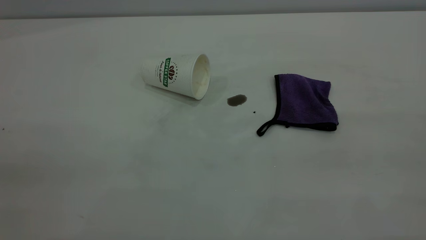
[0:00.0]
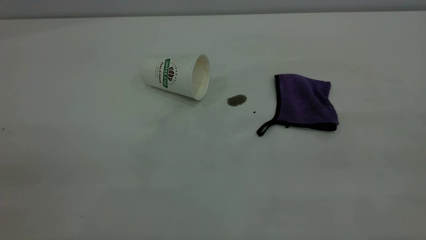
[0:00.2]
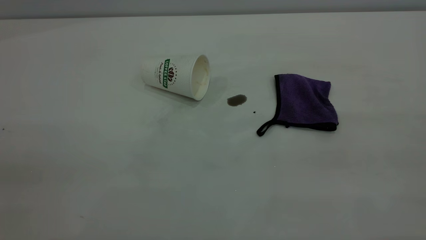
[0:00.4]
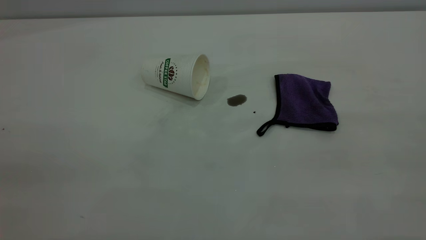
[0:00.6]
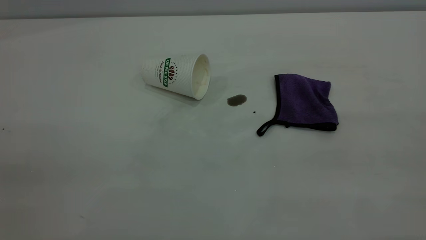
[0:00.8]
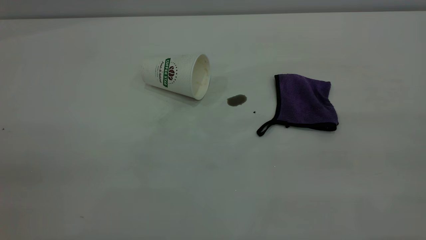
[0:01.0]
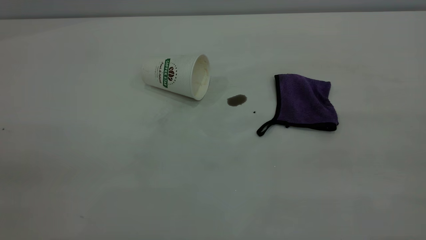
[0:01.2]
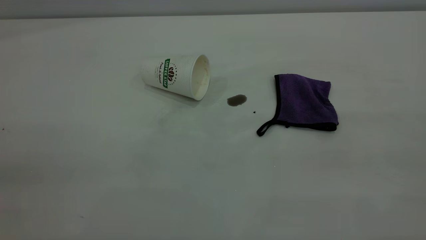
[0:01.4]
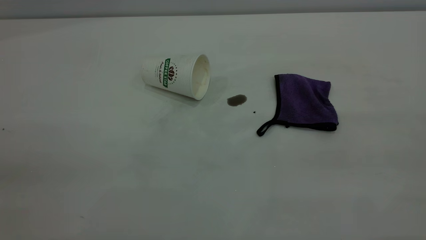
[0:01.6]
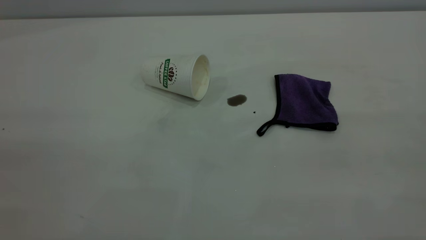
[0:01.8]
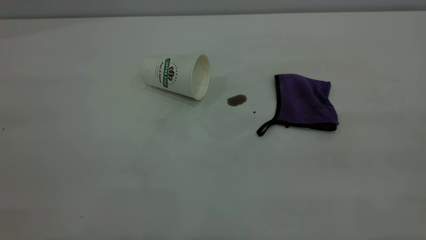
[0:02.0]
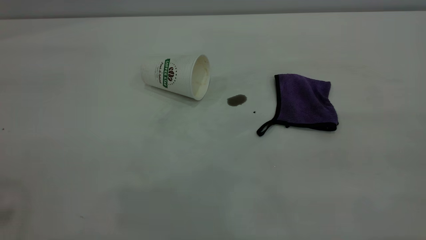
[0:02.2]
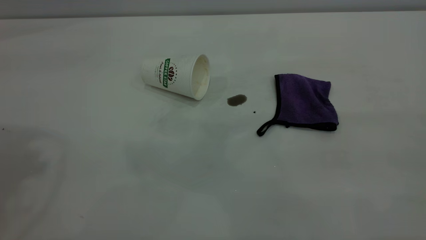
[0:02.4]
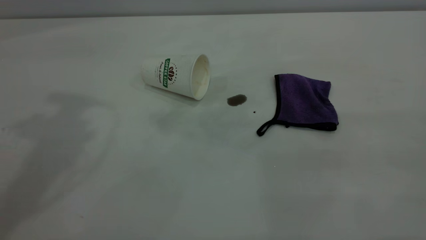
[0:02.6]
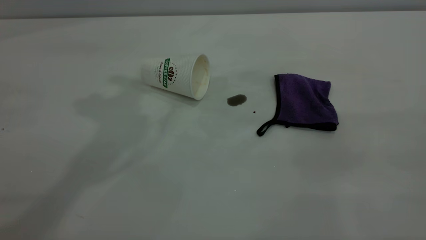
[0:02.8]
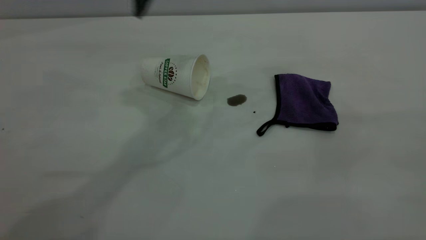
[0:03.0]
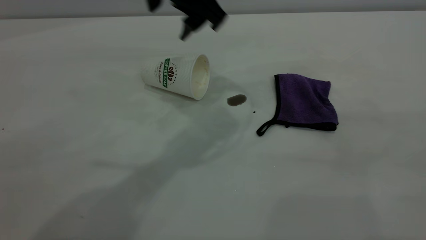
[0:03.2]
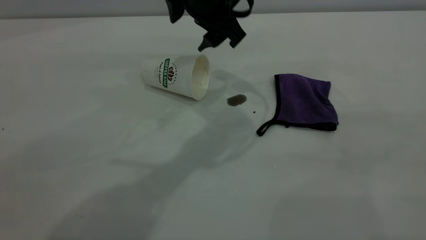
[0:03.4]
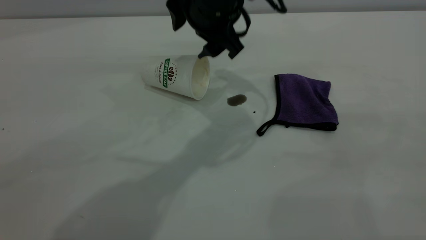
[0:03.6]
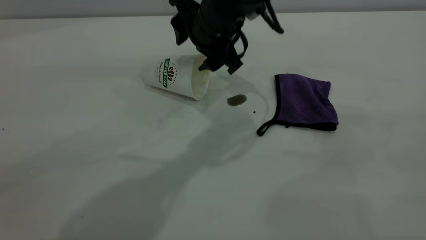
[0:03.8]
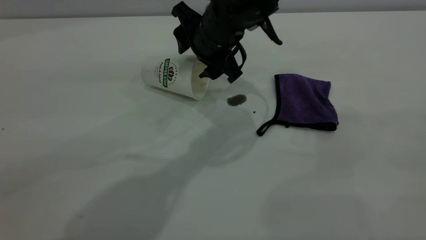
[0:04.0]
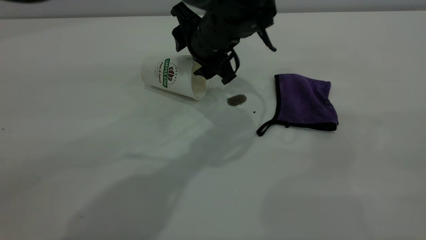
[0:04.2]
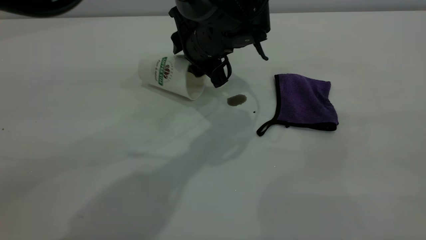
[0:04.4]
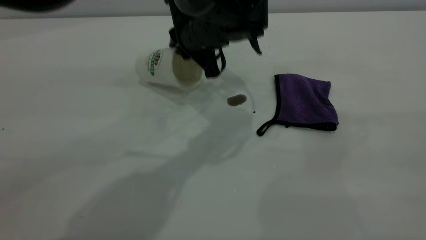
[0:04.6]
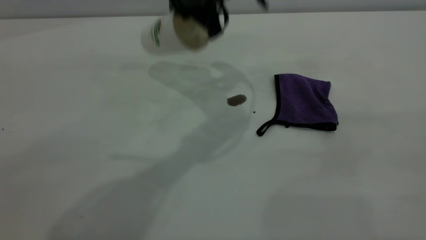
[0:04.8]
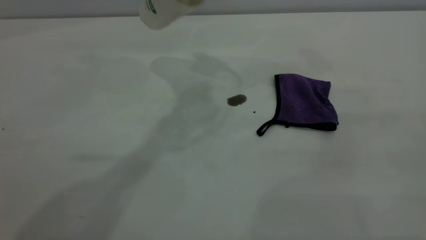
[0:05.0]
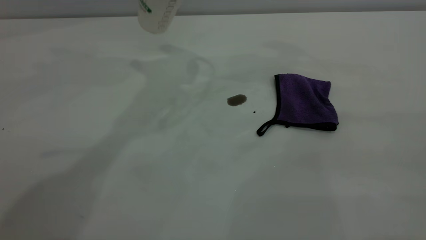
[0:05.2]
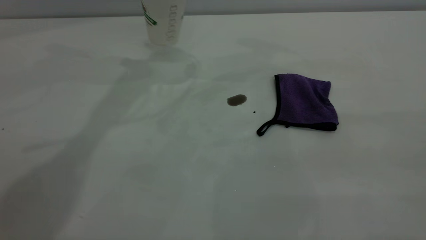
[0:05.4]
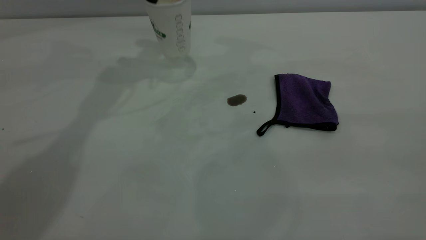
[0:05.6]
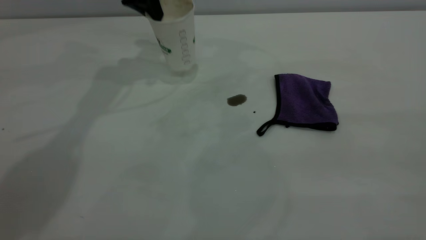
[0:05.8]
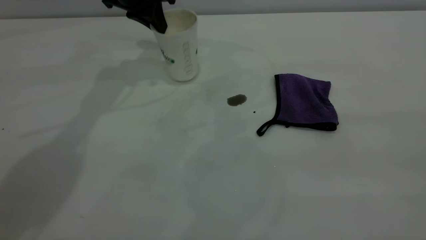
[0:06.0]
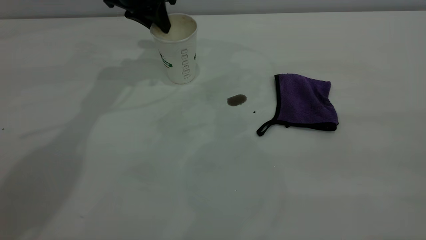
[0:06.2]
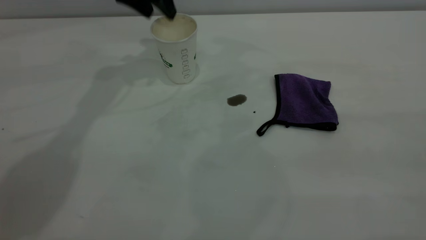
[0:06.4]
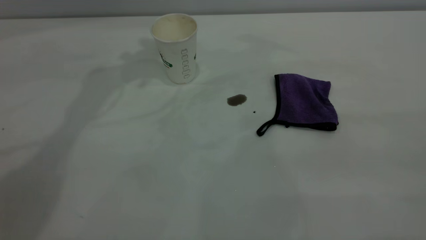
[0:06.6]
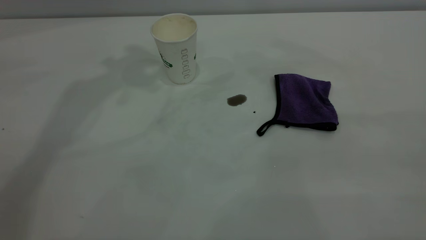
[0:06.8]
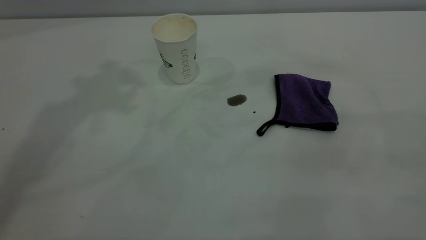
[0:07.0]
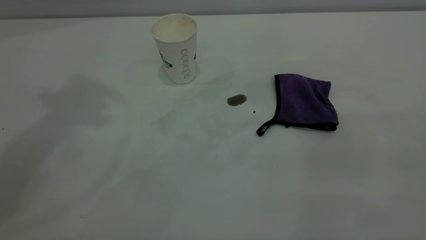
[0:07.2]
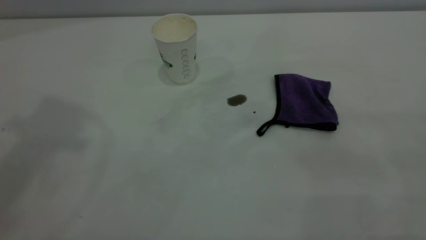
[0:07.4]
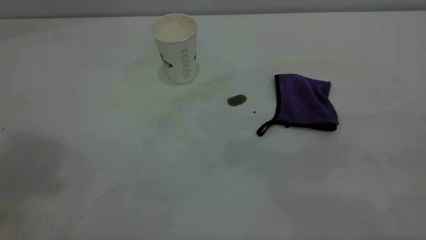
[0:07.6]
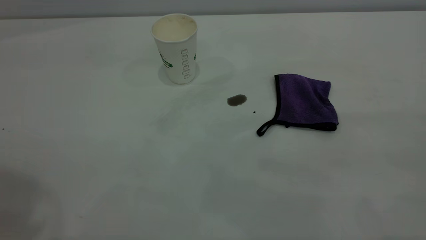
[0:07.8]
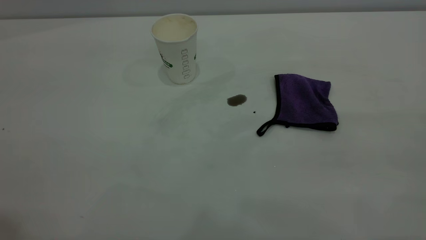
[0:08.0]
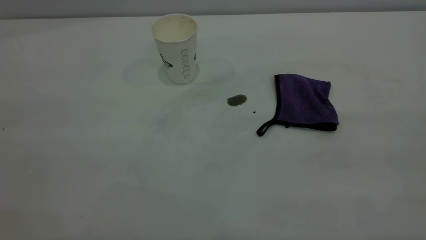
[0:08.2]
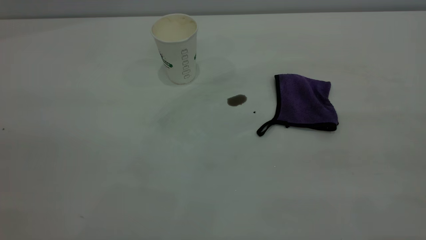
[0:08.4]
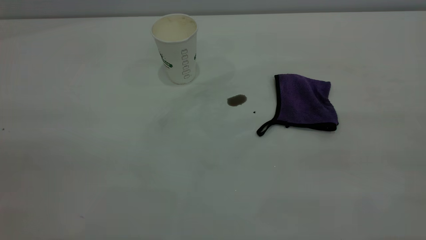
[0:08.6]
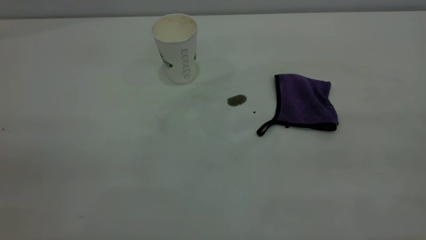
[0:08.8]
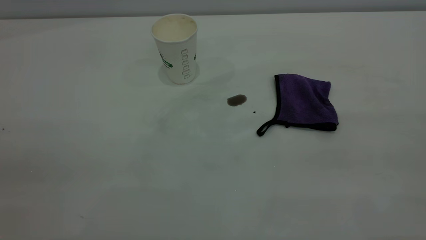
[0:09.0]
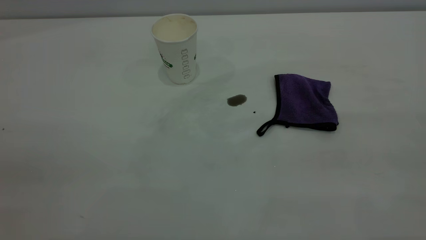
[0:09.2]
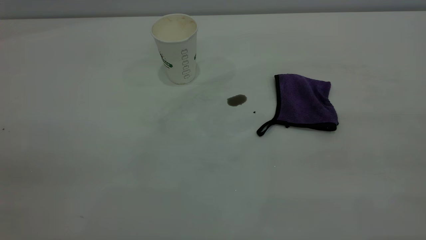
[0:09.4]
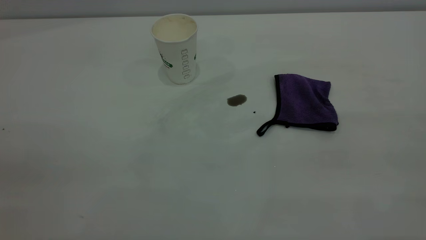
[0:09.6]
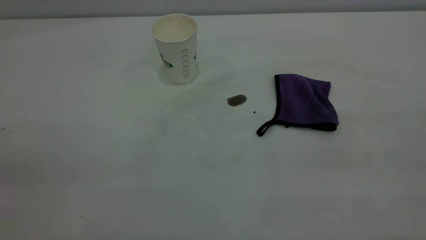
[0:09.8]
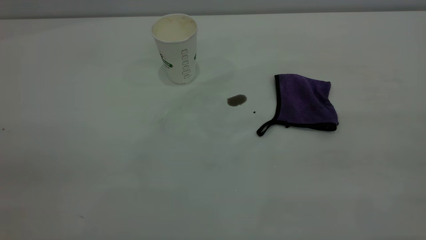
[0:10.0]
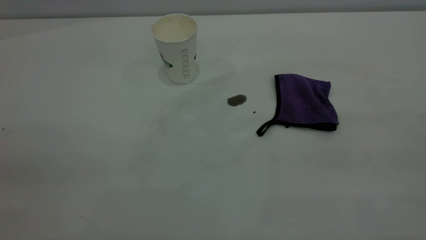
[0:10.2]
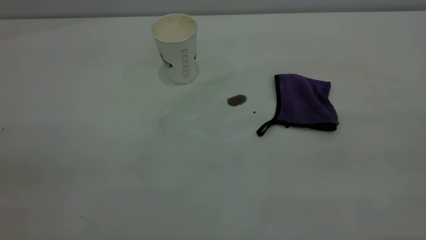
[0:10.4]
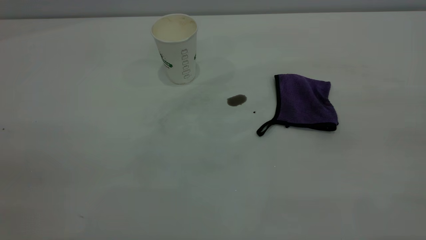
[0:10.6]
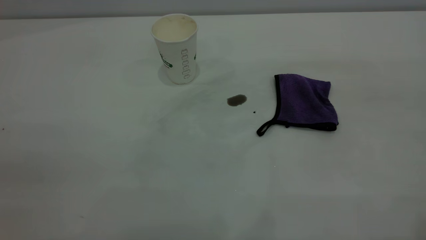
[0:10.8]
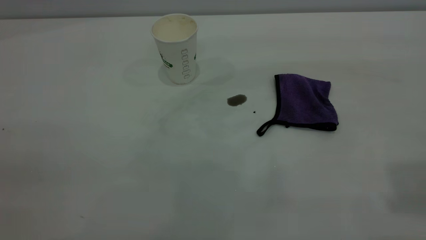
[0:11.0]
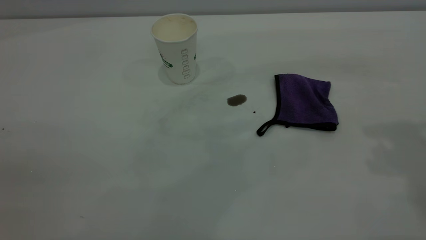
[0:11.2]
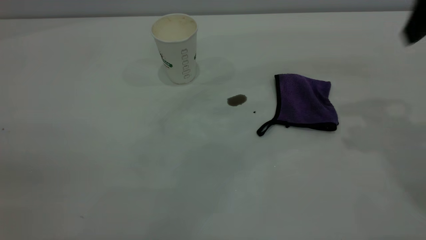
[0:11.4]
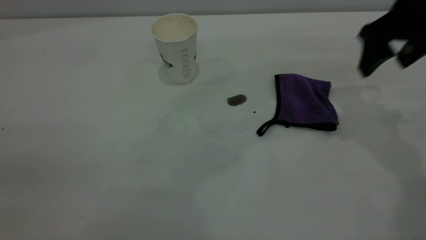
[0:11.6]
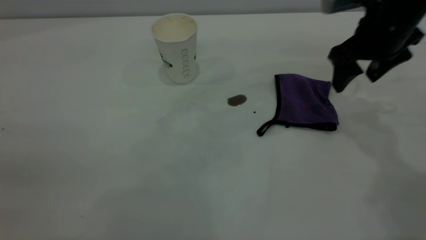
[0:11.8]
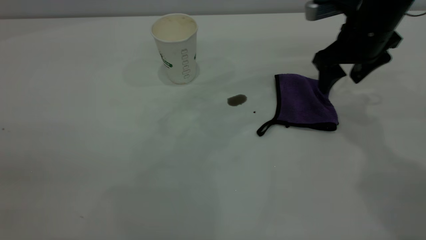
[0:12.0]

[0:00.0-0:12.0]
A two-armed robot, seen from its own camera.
Task of the whole recording: the left gripper pick up the fallen cup and place it upright, the right gripper grasp the purple rag and wipe the coffee stain on the table, the right gripper put the purple rag back in its original position.
Step, 0:00.0 to 0:06.2: Stand the paper cup upright.
0:00.0 to 0:01.6: Both grippers stay put.
0:03.0 to 0:04.4: The left gripper heads downward and to the right, covering roughly 20 cm, and closes up.
0:04.4 to 0:06.0: The left gripper shifts approximately 20 cm to the left, forward and upward, and closes up.
0:06.0 to 0:07.6: The left gripper shifts approximately 50 cm upward and backward, and opens.
0:09.0 to 0:10.4: Both grippers stay put.
0:10.4 to 0:12.0: The right gripper shifts roughly 50 cm forward and downward, and opens its fingers.

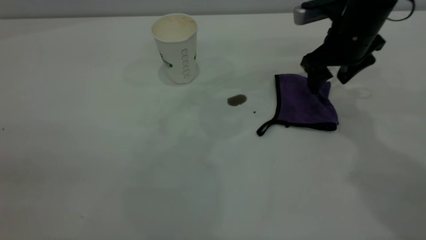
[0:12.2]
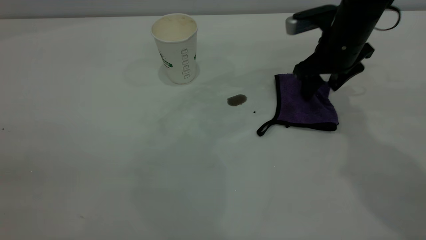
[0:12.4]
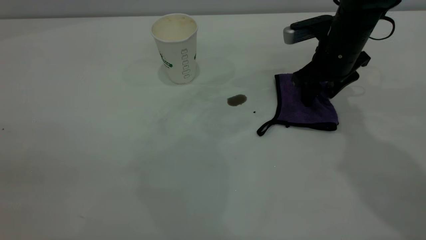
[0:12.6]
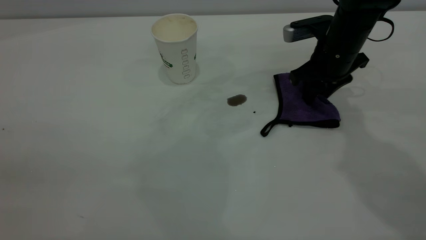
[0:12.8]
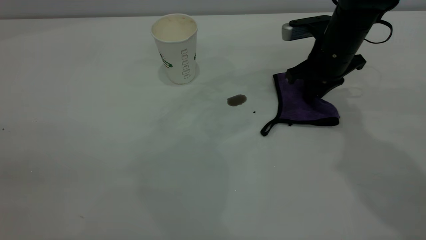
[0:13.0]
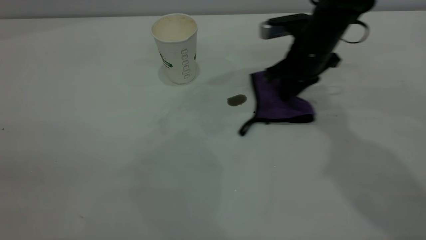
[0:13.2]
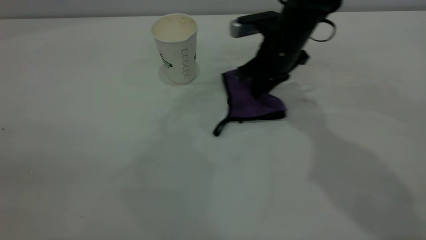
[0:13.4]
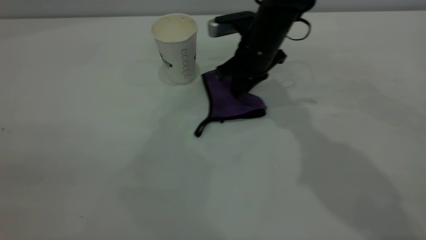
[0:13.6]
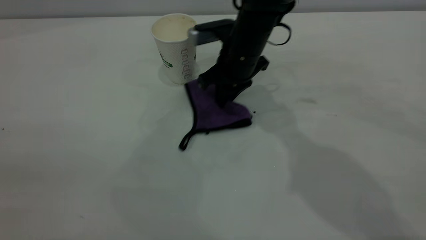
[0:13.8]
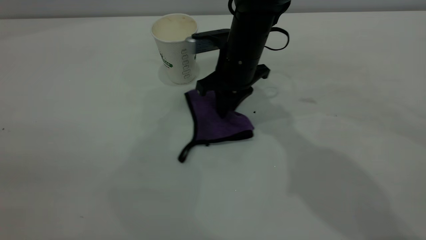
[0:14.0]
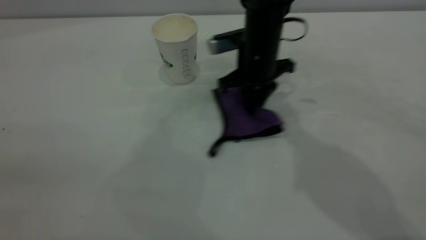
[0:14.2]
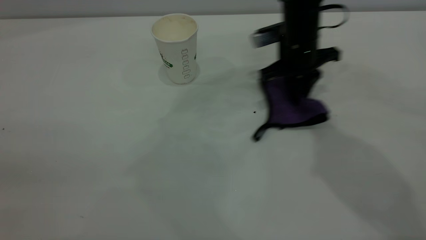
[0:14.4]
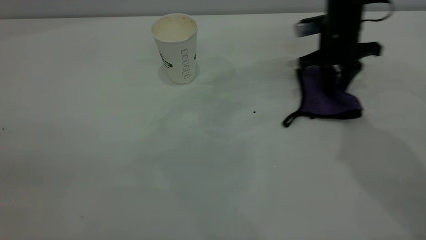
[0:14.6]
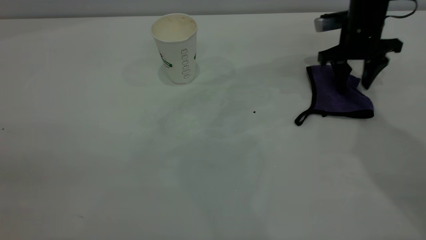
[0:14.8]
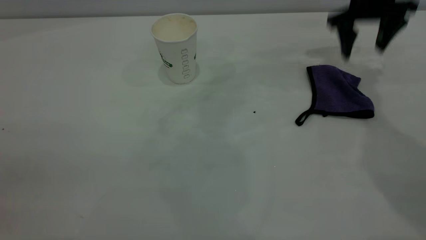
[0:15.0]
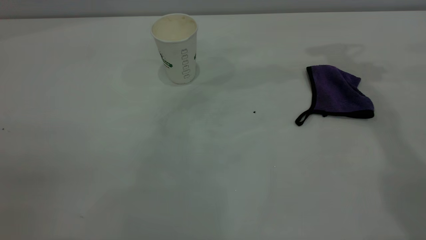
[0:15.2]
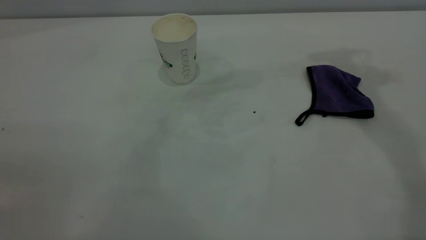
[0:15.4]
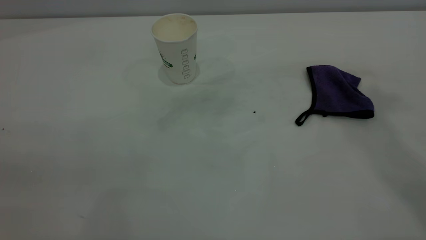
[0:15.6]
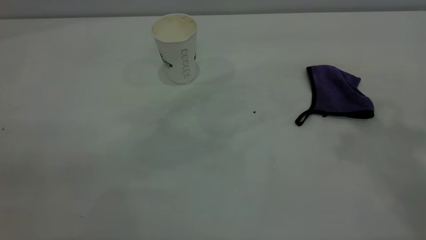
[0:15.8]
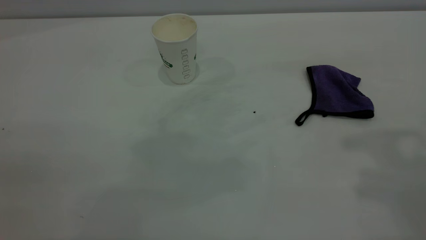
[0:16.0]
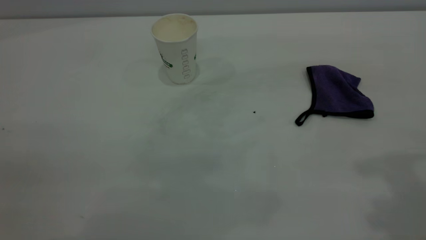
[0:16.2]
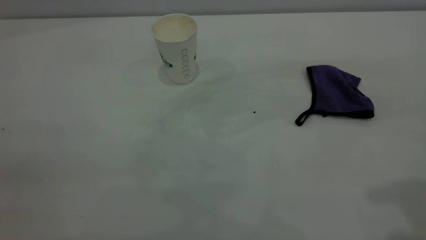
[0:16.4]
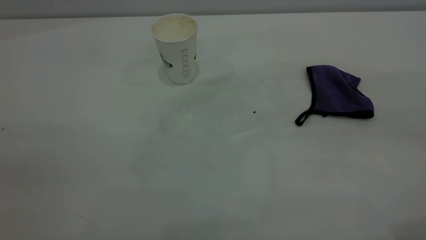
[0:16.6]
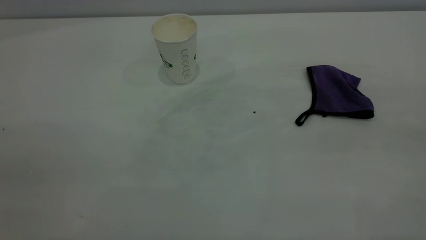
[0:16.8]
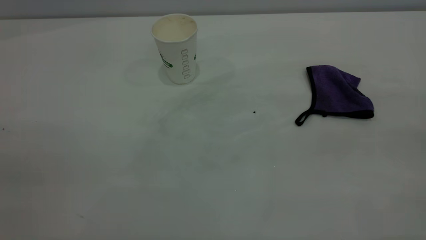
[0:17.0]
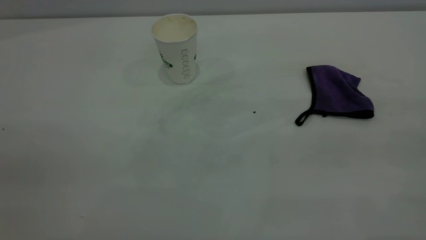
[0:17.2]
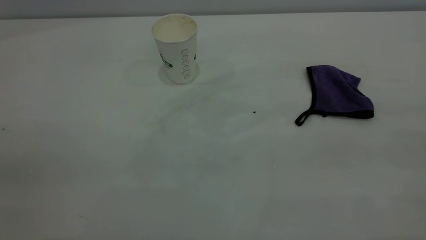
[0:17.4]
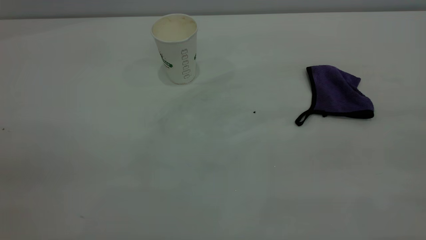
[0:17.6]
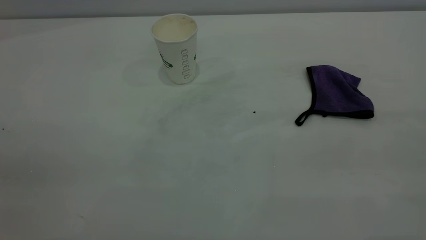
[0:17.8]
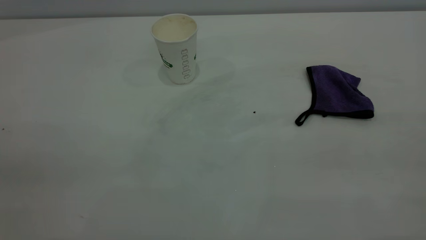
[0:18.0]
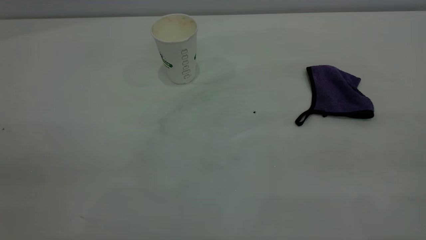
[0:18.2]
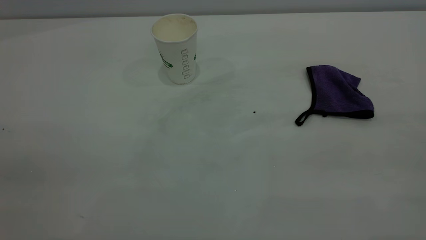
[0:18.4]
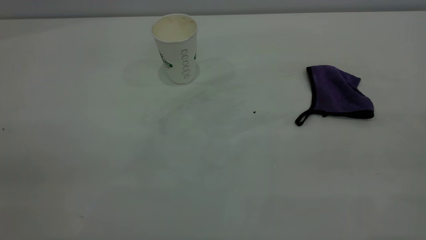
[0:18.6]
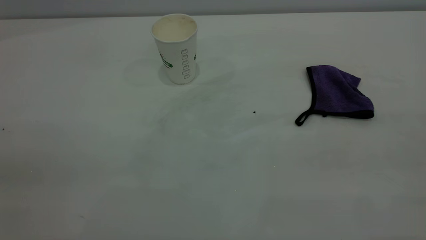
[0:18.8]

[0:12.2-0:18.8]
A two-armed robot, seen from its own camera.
Task of the whole recording: the left gripper pick up the fallen cup and place it upright, the right gripper grasp the purple rag and wipe the coffee stain on the table, the right gripper put the purple rag back in its original position.
Step, 0:12.2 to 0:14.8: Wipe the stains off the table with a rag.
0:12.2 to 0:13.8: The right gripper goes roughly 15 cm to the left, and closes.
0:13.8 to 0:15.4: The right gripper heads upward and to the right, covering roughly 40 cm, and opens up.
